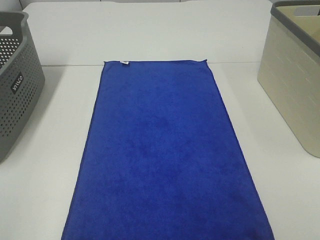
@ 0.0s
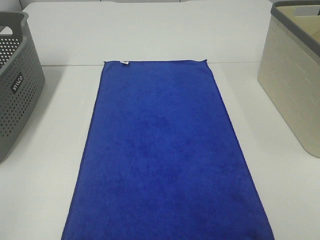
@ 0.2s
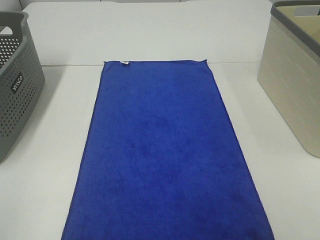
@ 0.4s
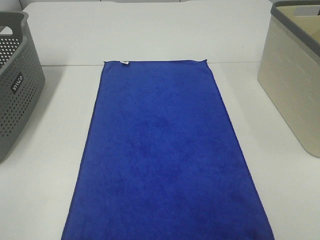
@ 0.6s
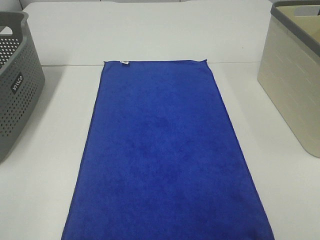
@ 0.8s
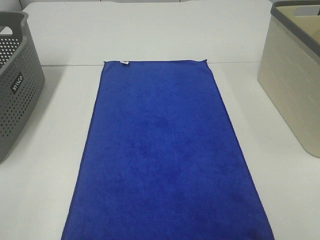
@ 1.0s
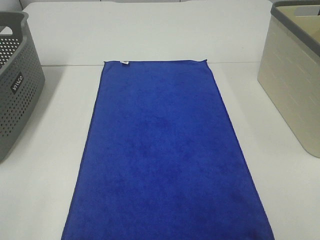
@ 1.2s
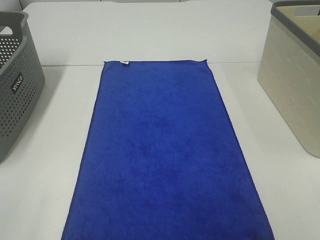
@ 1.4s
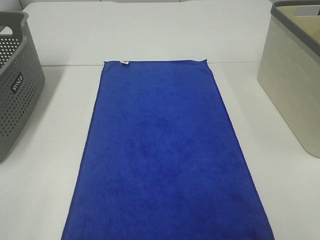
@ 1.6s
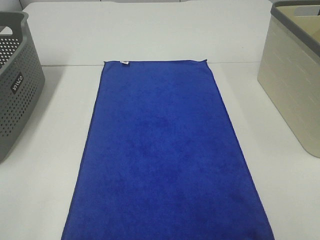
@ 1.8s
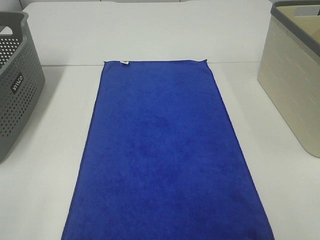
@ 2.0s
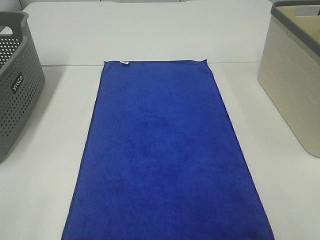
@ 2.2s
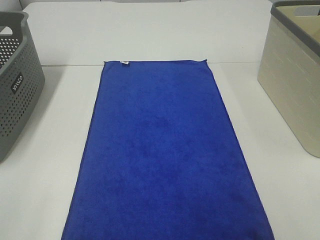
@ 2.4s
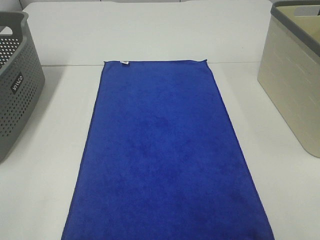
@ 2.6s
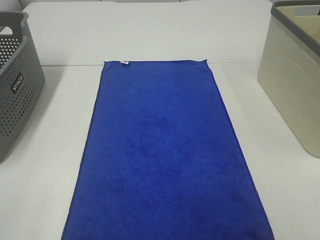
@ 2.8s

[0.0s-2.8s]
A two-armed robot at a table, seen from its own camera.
Task of the whole recording: Remove the towel and place it.
1.4s to 2.8s: Both grippers stay about where they are.

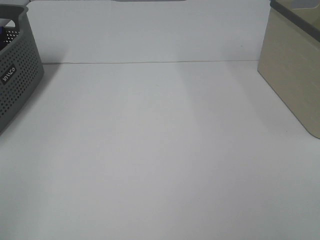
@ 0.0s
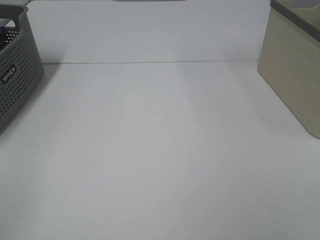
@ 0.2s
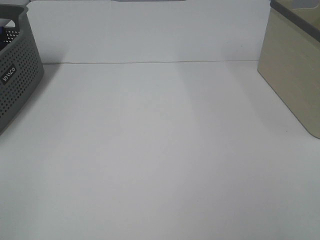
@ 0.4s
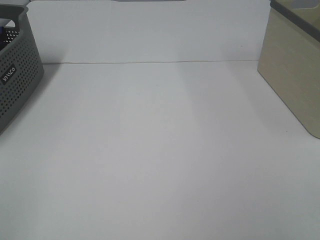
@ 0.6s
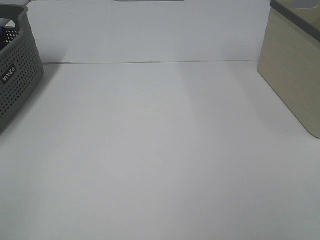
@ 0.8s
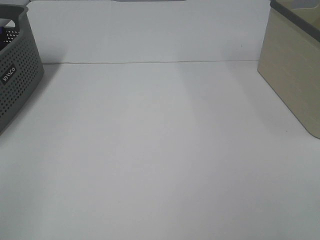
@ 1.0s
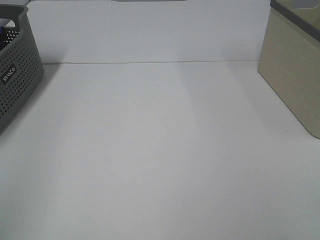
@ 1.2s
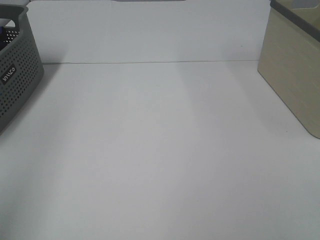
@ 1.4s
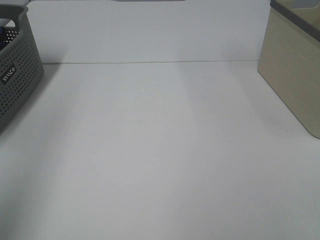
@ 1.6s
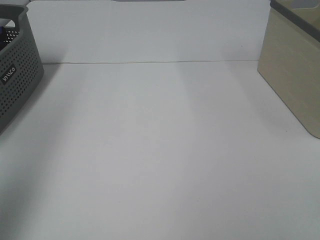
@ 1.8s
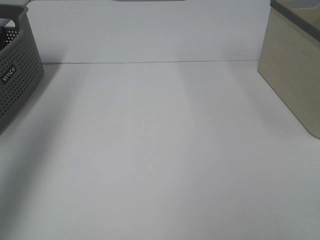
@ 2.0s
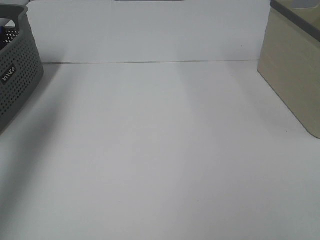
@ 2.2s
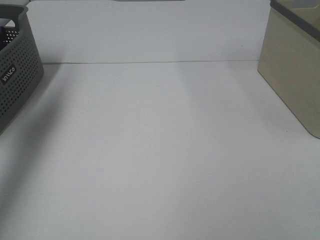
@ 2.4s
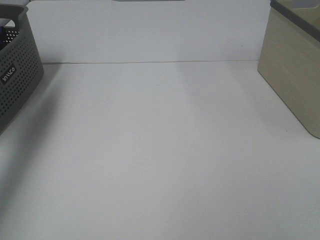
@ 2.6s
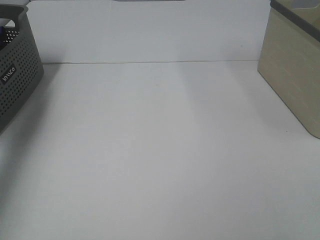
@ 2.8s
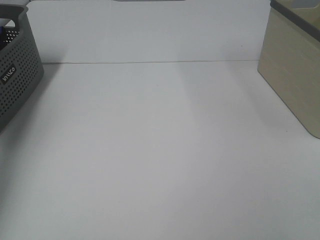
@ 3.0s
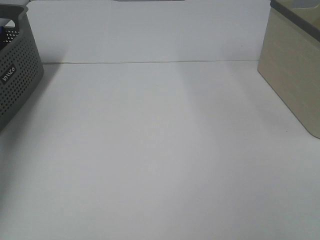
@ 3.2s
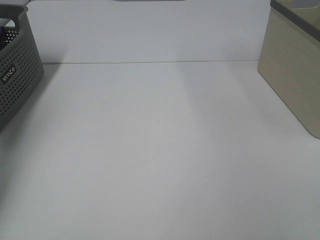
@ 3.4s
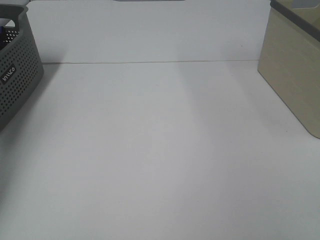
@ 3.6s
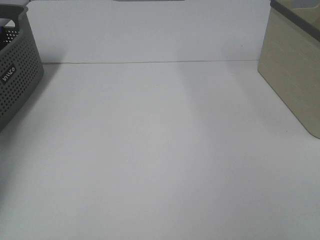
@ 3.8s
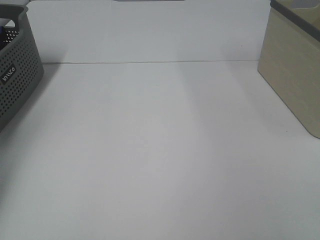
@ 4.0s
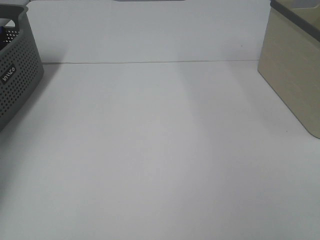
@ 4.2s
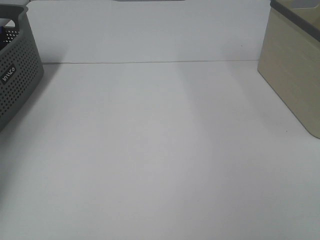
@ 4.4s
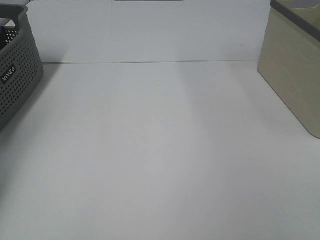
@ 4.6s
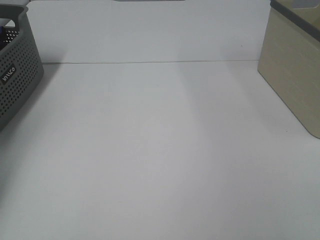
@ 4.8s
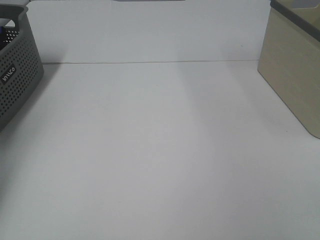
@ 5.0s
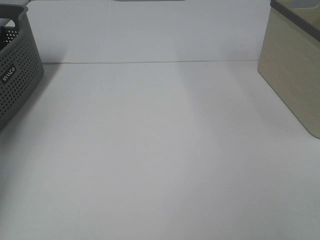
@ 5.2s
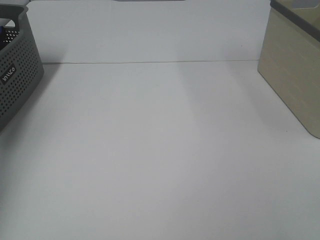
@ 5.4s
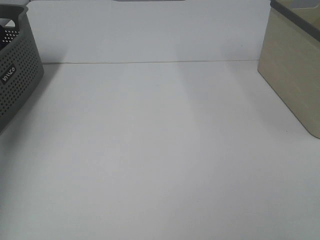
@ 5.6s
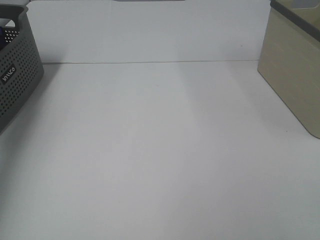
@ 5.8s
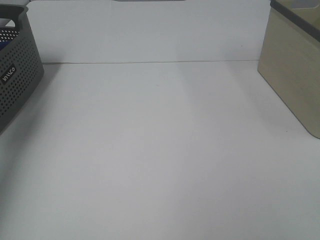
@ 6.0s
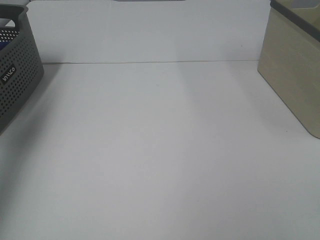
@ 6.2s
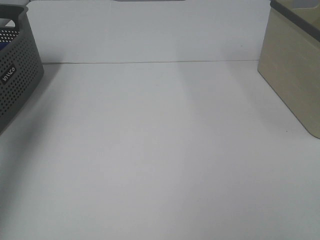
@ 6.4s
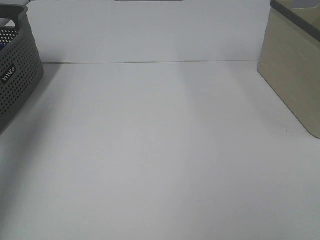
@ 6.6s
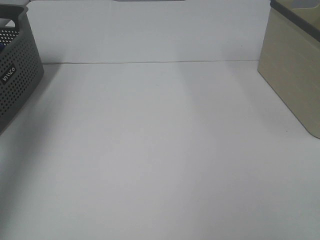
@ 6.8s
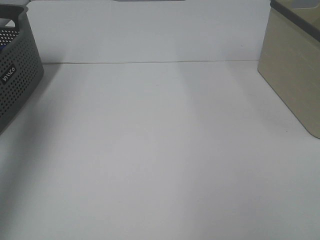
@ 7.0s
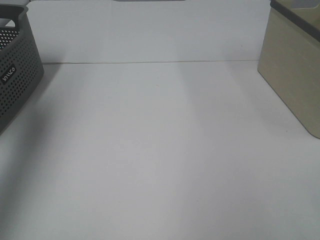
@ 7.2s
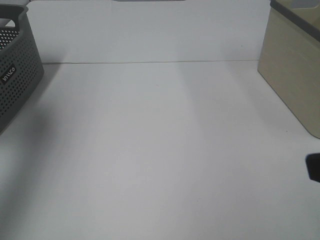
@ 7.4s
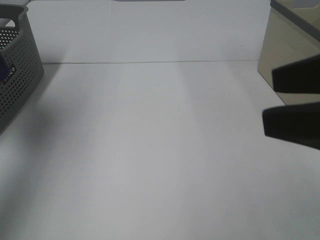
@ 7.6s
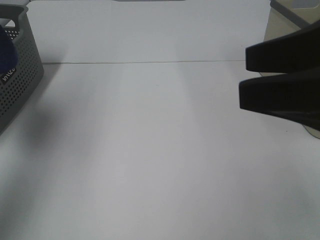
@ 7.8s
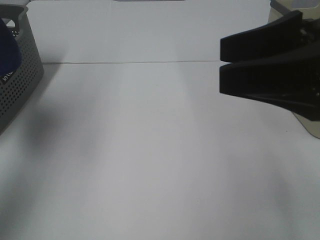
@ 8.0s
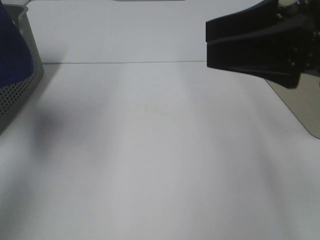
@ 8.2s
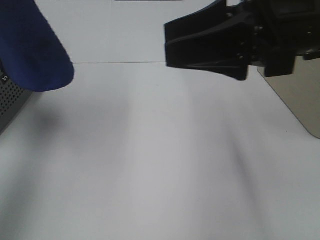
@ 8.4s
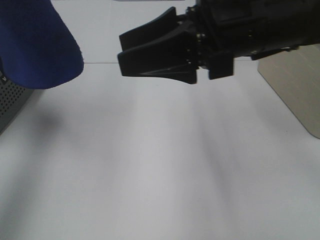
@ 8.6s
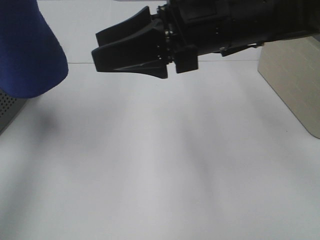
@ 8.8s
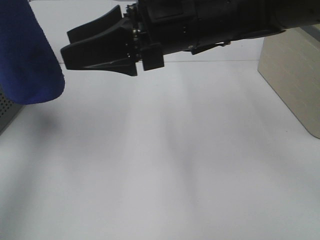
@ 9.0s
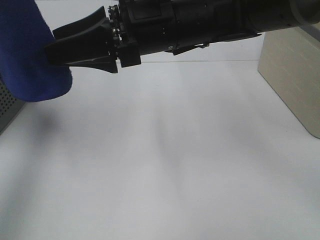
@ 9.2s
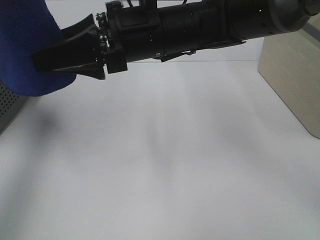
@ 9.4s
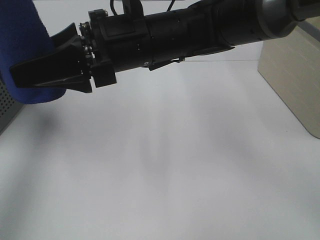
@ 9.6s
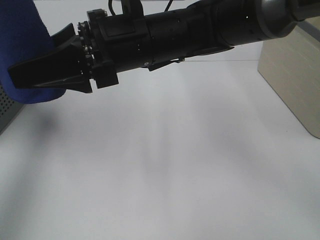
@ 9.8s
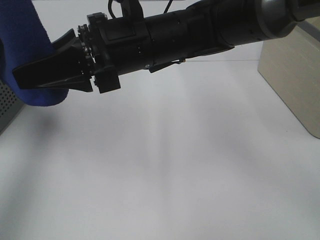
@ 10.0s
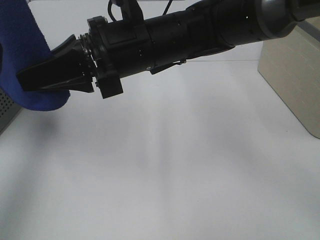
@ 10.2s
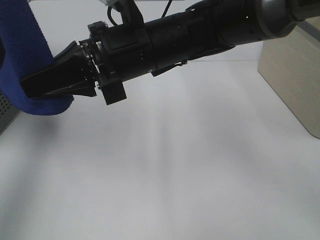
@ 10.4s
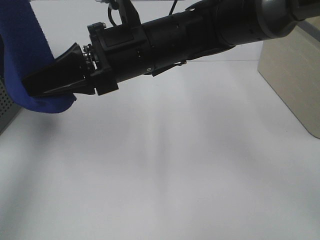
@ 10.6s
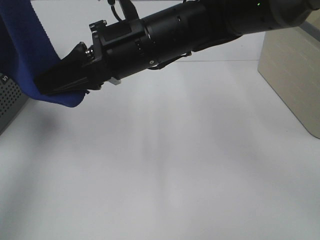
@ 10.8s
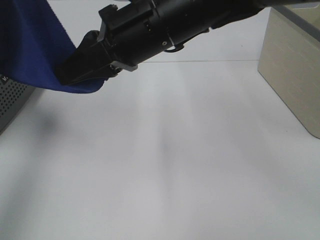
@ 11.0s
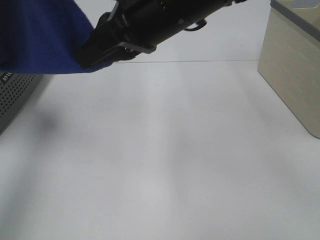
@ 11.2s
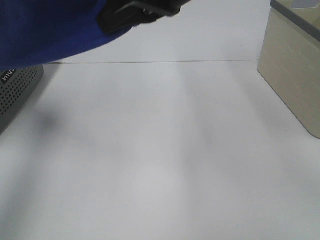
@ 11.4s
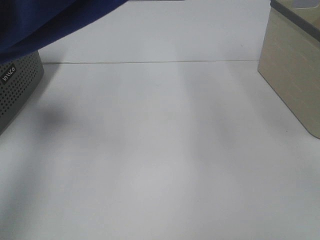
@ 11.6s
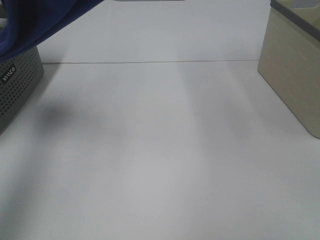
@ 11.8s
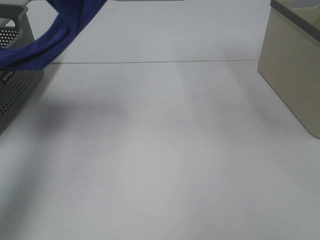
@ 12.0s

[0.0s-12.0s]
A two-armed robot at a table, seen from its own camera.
Task of the whole recording: Remove the towel and place it.
Step, 7.0s to 10.8s: Right hand: grab a corner of the blue towel and straighten it.
0.0s to 1.6s: The left gripper shifts about 15 cm forward and upward.
1.6s to 3.0s: The left gripper travels forward and downward by approximately 35 cm.
4.4s to 6.0s: The left gripper shifts about 30 cm upward and backward.
6.0s to 7.6s: The right gripper moves forward, to the left and upward, about 15 cm. The left gripper heads backward, to the right and upward, covering approximately 15 cm.
7.6s to 9.0s: The left gripper moves to the right, roughly 5 cm. The right gripper heads forward and to the left, covering about 25 cm.
9.0s to 10.4s: The right gripper ends up about 5 cm from where it was, and closes.
10.4s to 12.0s: The left gripper shifts approximately 5 cm forward. Meanwhile the right gripper goes roughly 25 cm upward and to the right.

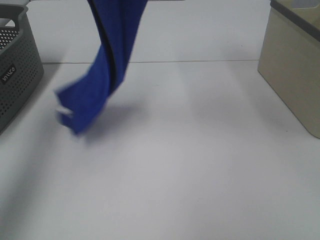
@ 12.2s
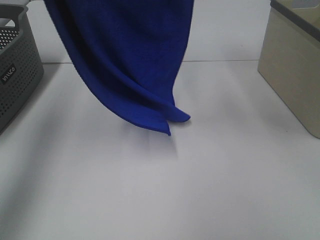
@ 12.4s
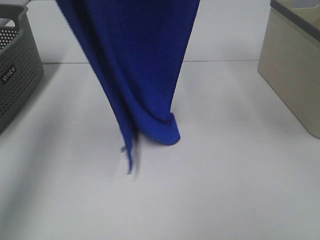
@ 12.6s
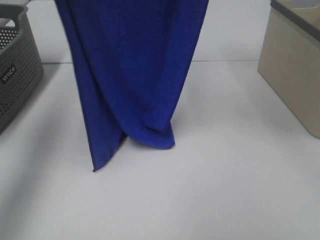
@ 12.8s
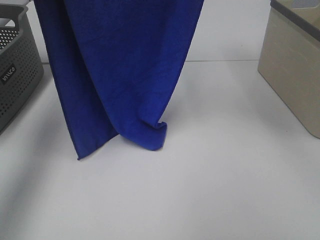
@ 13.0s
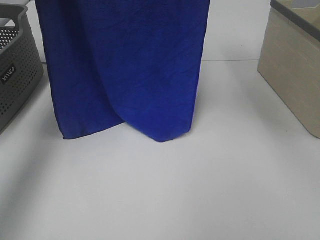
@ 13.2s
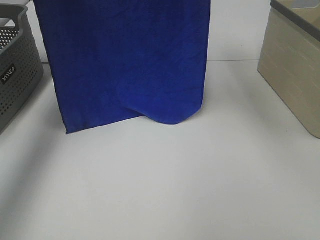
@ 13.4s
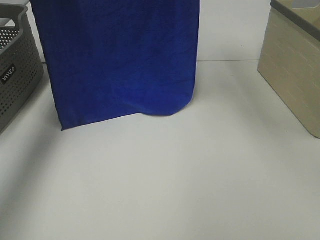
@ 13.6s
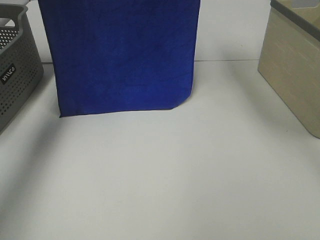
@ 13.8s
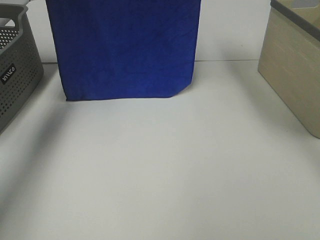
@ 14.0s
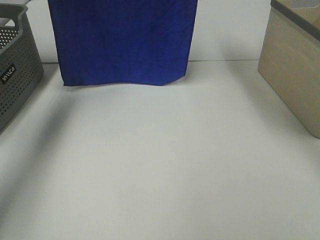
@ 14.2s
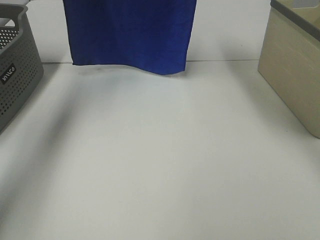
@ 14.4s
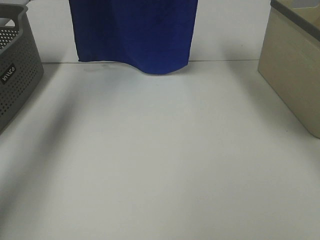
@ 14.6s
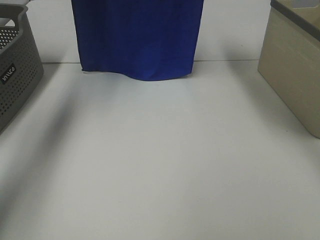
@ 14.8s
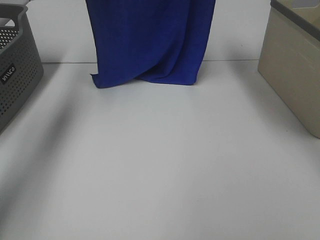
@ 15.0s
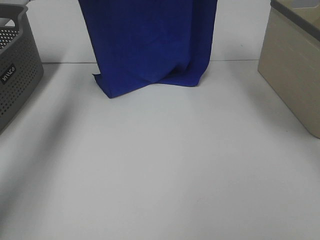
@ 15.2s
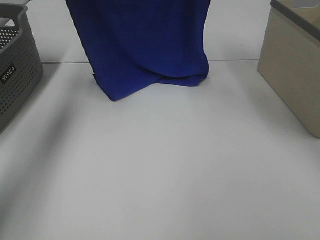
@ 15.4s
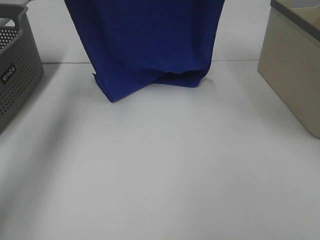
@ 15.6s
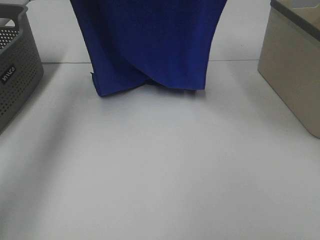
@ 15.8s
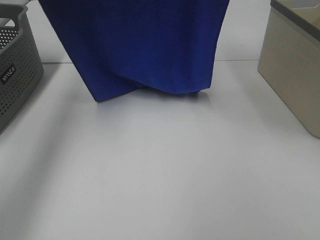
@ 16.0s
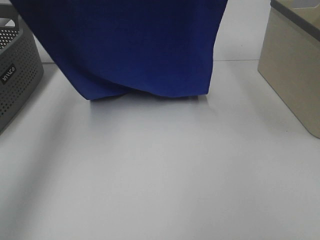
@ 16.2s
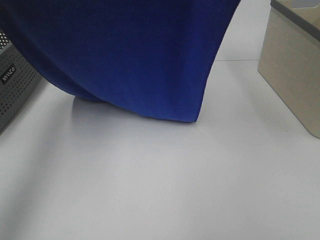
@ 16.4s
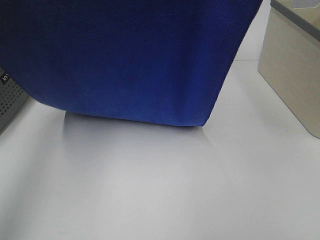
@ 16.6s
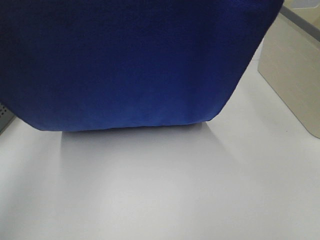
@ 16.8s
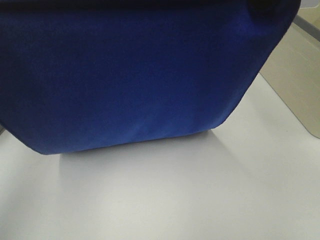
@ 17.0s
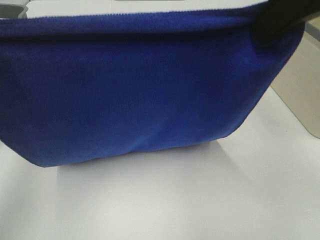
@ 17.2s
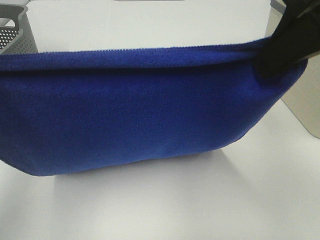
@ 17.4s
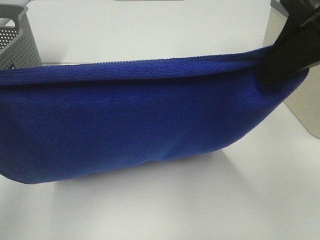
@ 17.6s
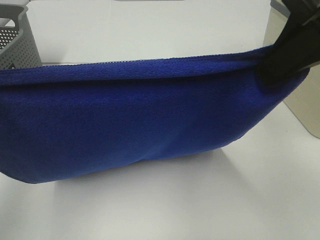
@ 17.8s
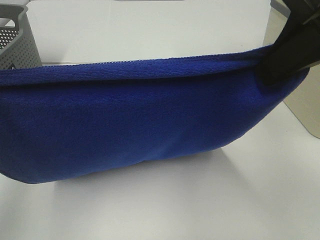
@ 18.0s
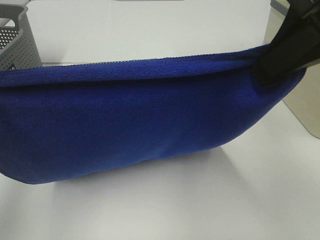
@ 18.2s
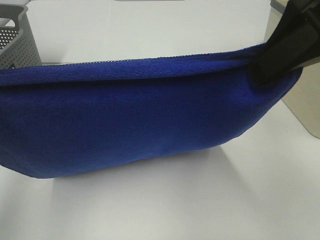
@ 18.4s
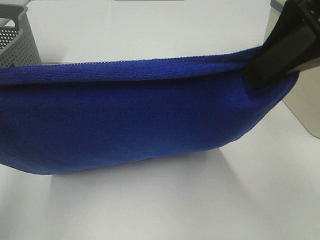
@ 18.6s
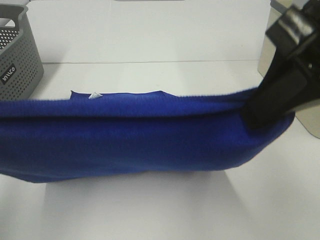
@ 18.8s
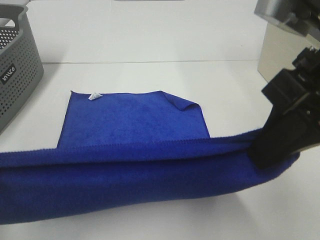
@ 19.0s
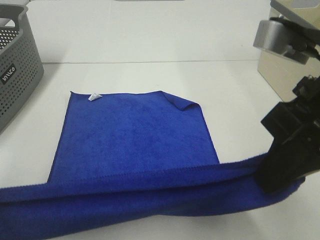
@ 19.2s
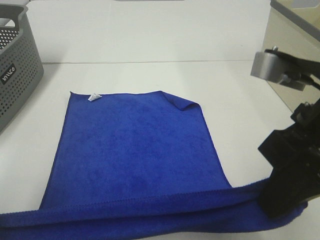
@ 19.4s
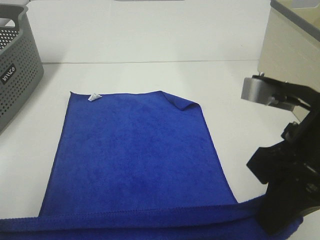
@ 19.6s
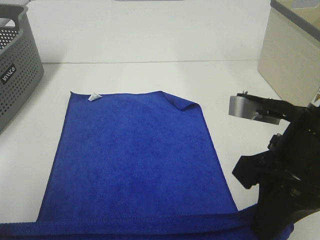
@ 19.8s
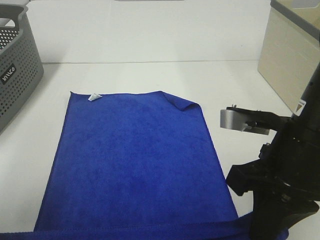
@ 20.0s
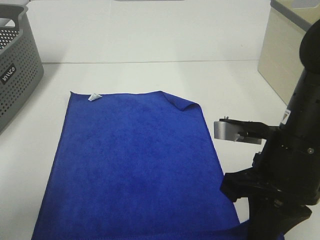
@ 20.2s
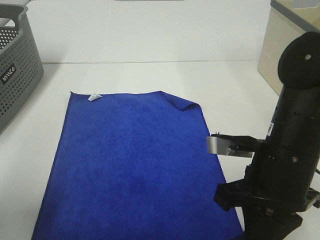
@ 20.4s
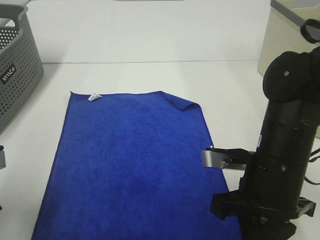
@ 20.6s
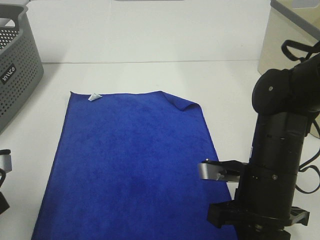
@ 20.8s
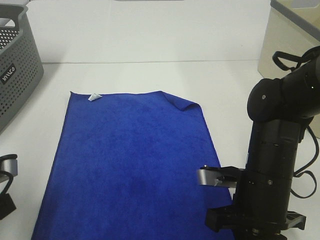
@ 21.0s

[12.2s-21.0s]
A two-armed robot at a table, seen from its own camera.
Task of the whole recording: Remove the towel and place it.
Step, 12.2s to 17.8s: Left hand: spread the blue towel flat on the table.
Step, 12.2s to 17.8s: Right hand: spread the blue towel flat on the table.
12.2s to 13.6s: The right gripper is displaced forward by about 10 cm; the left gripper moves forward and downward, some 15 cm.
13.6s to 15.2s: The left gripper heads forward, covering approximately 5 cm; the right gripper changes place by roughly 5 cm.
15.2s to 16.6s: The left gripper shifts some 25 cm backward. Meanwhile the right gripper heads backward, covering roughly 15 cm.
16.6s to 18.0s: Both grippers move downward and backward, some 10 cm.
18.0s to 19.6s: The left gripper moves downward and backward, about 10 cm. The right gripper travels downward by roughly 15 cm.
19.6s to 21.0s: The left gripper shifts approximately 15 cm downward and forward. The right gripper is displaced downward by approximately 15 cm.
